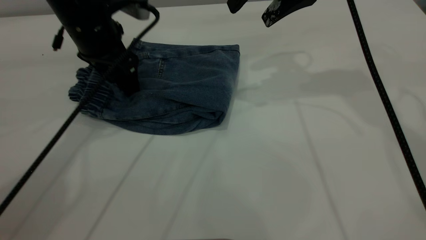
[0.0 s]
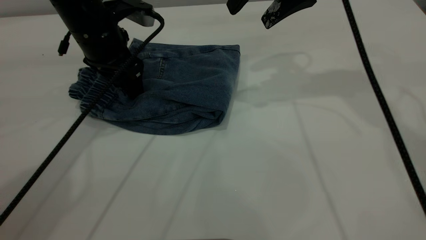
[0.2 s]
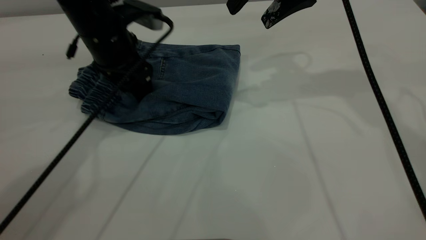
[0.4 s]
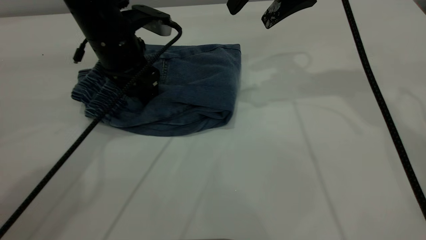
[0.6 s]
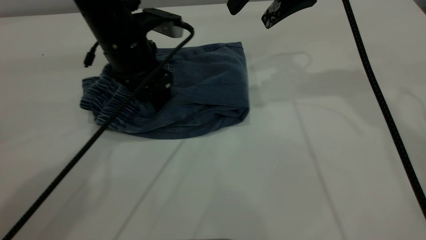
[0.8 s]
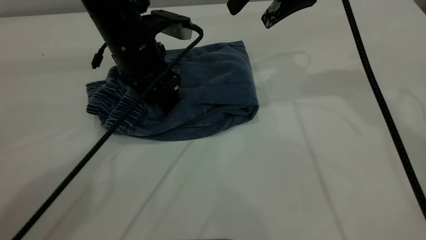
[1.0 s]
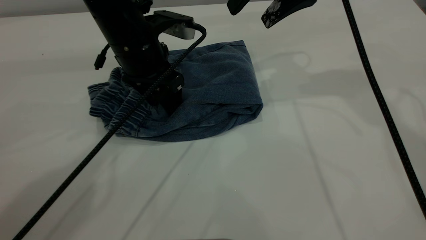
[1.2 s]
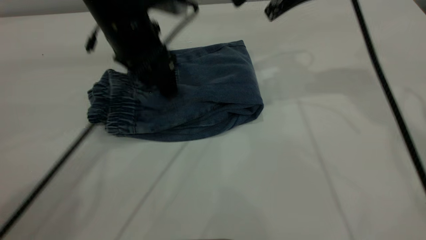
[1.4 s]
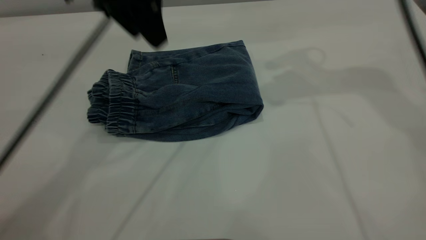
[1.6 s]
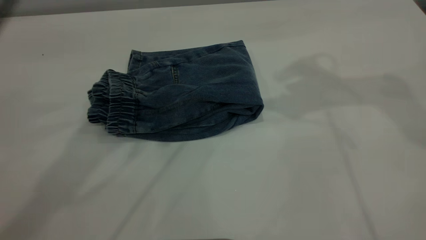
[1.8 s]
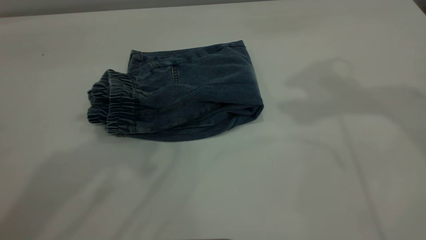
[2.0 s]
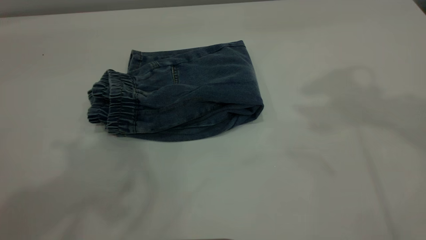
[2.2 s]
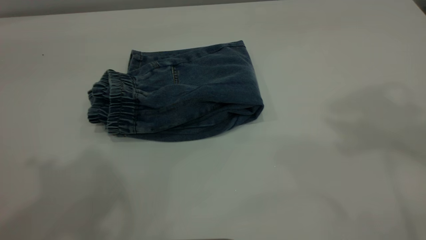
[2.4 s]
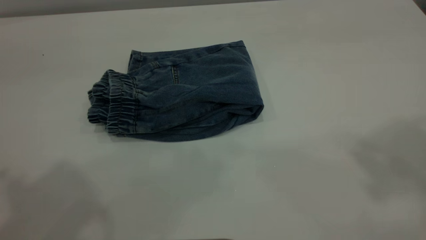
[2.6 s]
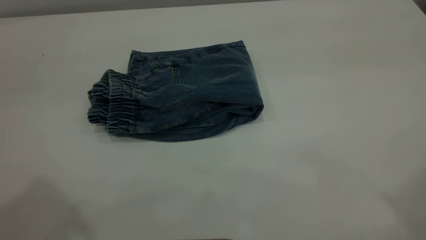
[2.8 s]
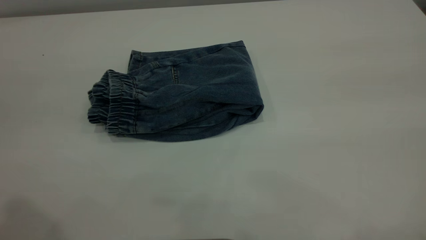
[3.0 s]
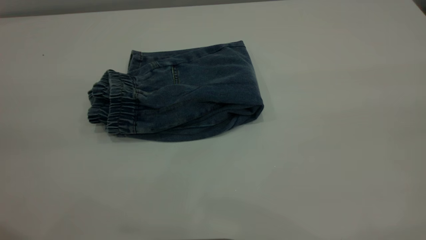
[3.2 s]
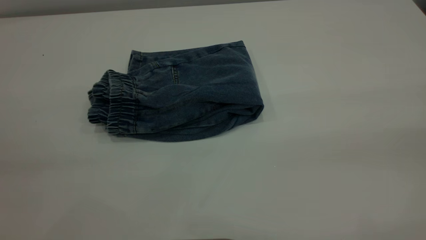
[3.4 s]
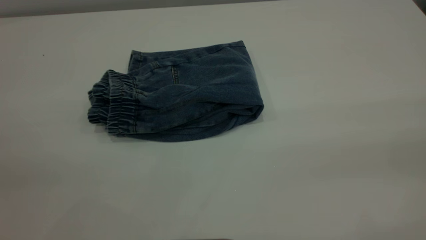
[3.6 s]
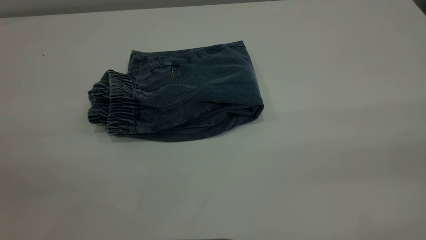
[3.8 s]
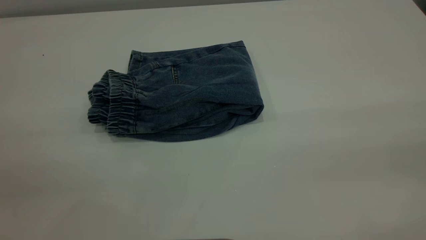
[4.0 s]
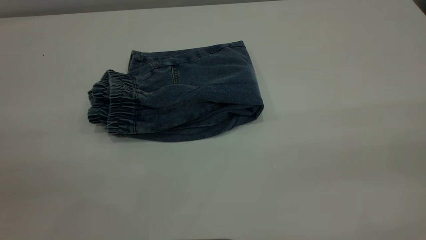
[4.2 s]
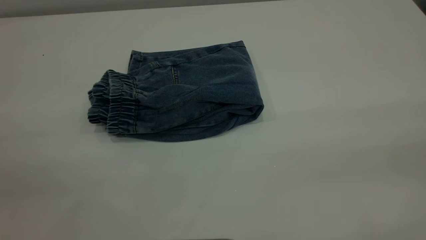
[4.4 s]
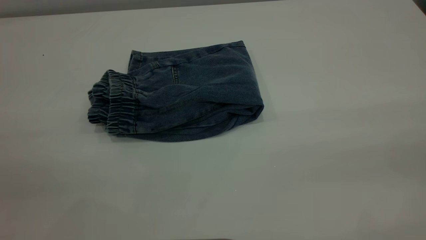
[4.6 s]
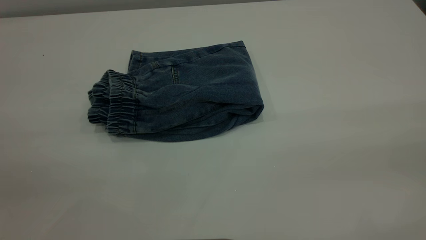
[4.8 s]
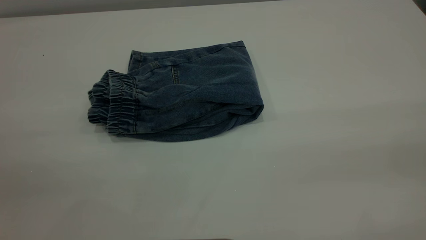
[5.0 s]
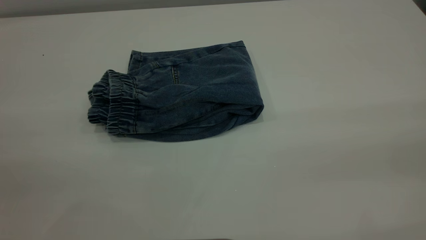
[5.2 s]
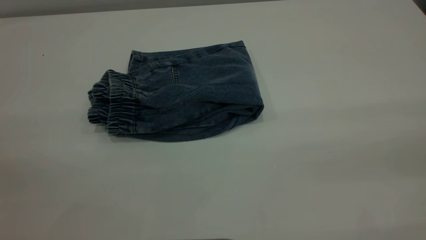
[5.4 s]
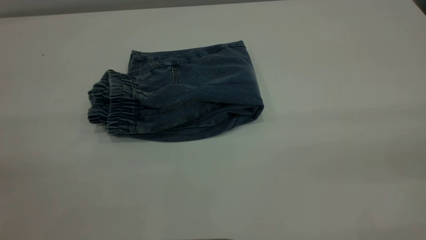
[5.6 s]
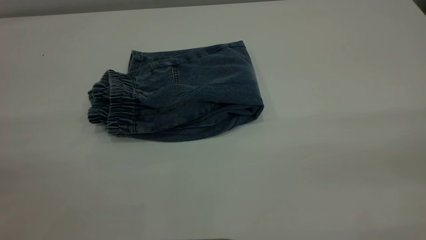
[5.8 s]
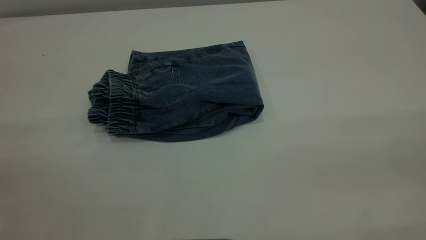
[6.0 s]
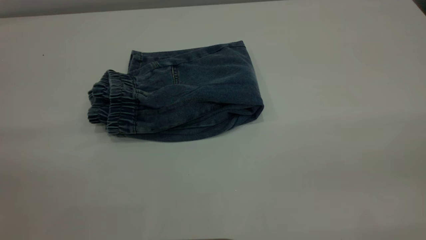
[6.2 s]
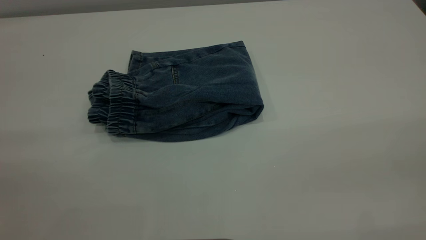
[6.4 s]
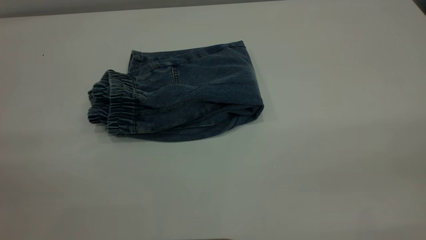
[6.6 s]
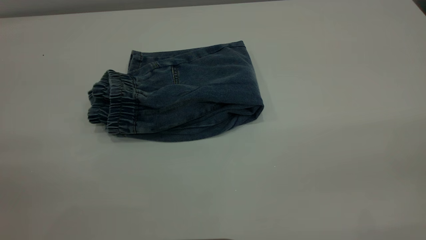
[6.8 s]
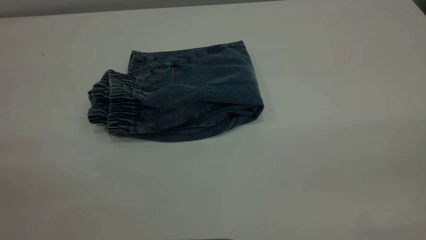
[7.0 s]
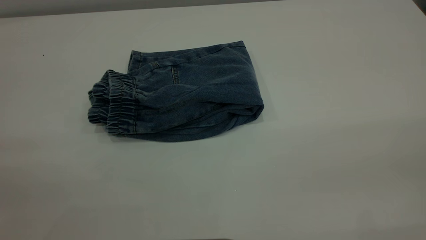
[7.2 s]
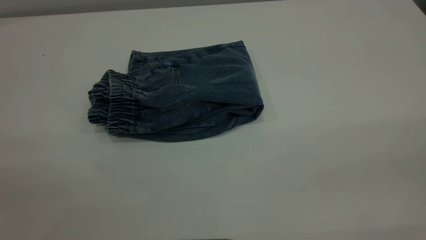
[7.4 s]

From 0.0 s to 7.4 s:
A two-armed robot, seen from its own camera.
From 0.0 s to 1.4 s: The left gripper shifts some 5 cm to the right.
From 1.4 s to 3.0 s: The right gripper shifts about 40 cm backward and upward; the left gripper is displaced backward, upward and to the left by roughly 35 cm.
